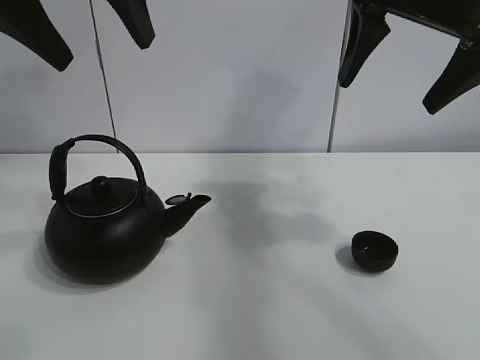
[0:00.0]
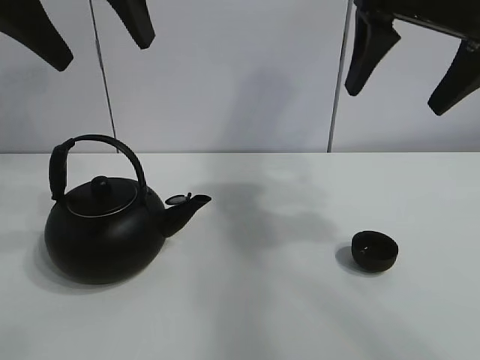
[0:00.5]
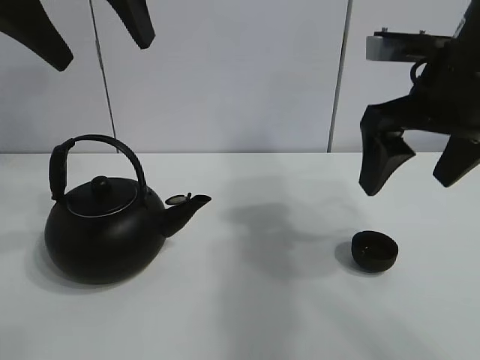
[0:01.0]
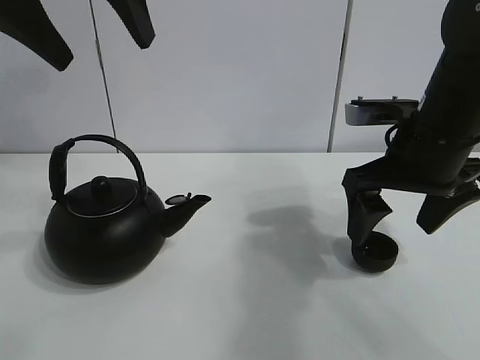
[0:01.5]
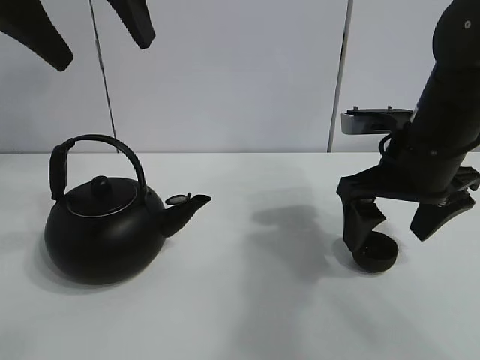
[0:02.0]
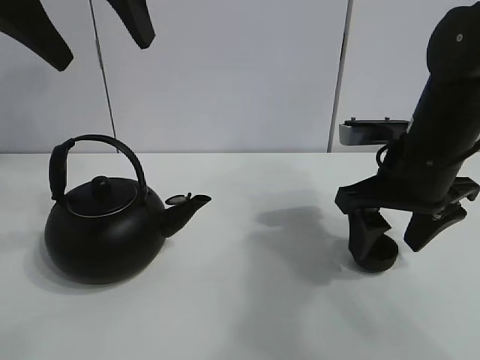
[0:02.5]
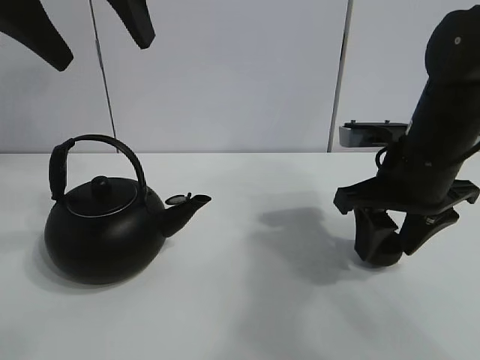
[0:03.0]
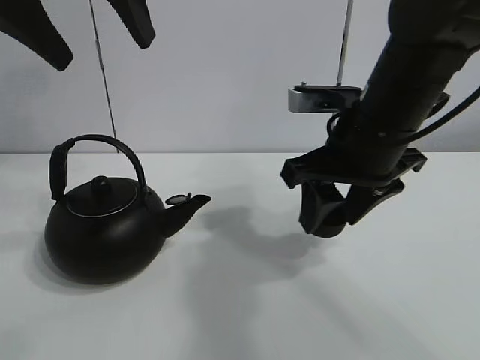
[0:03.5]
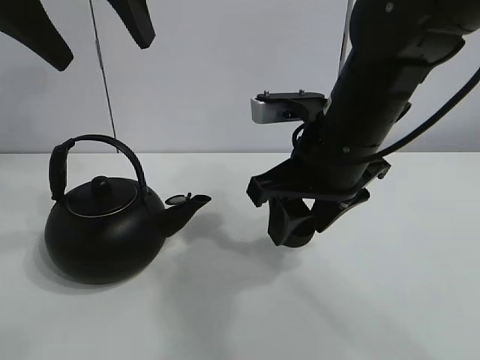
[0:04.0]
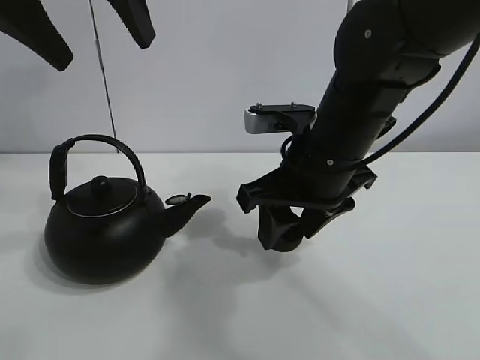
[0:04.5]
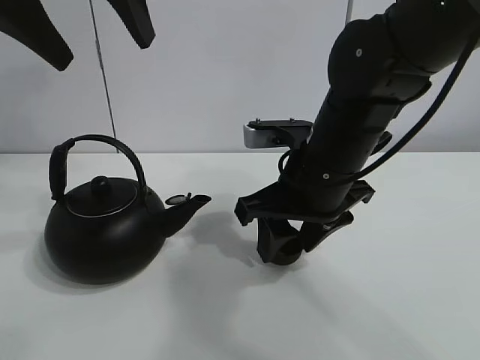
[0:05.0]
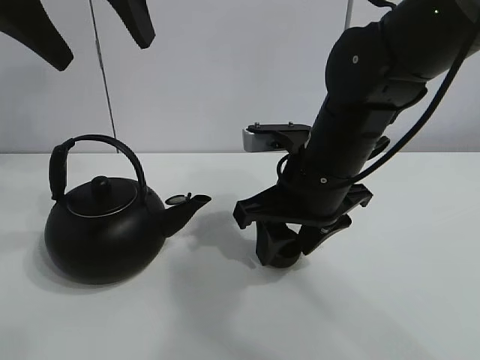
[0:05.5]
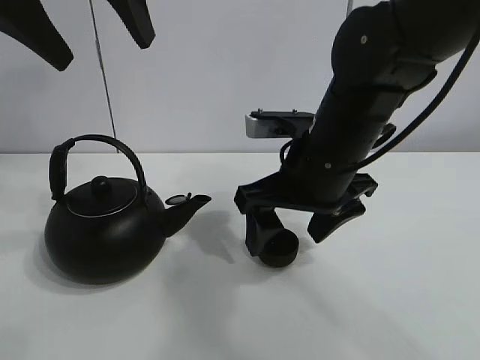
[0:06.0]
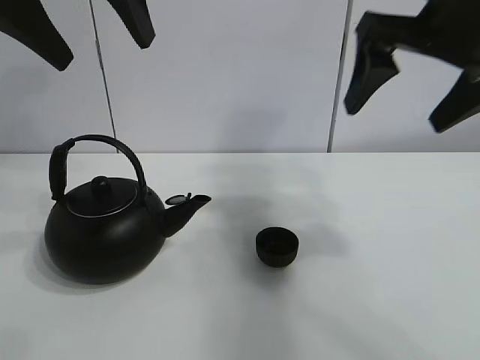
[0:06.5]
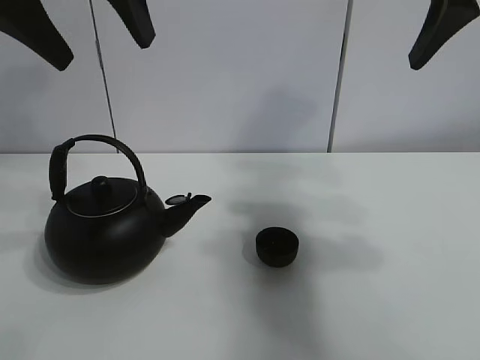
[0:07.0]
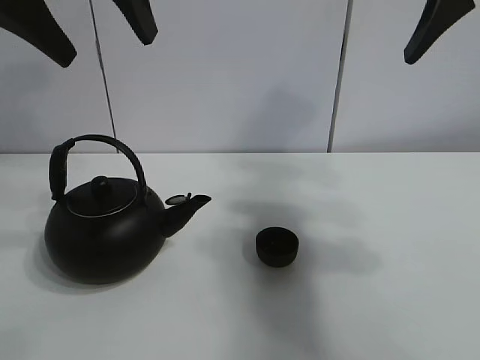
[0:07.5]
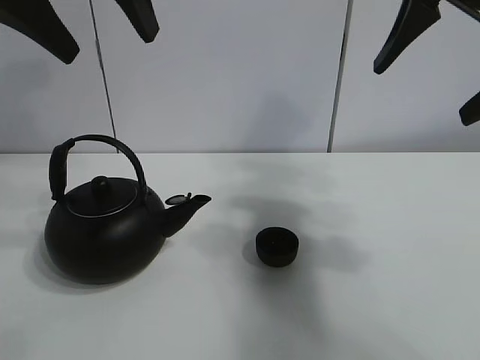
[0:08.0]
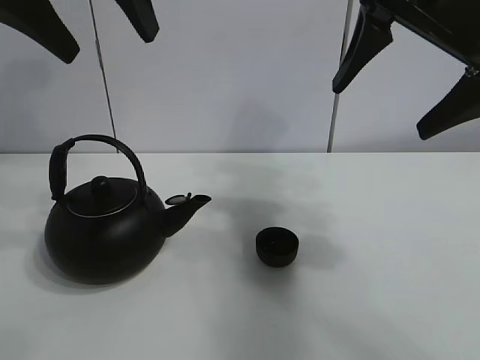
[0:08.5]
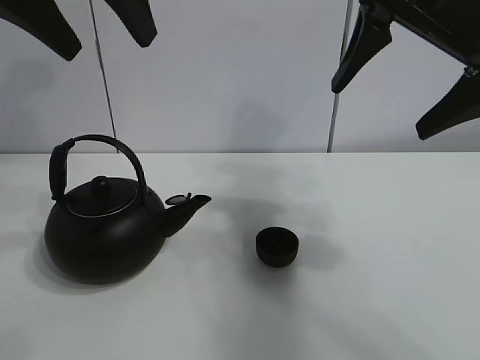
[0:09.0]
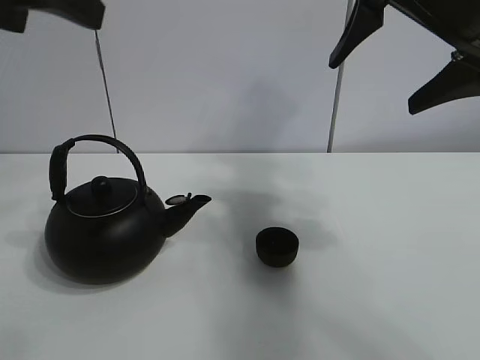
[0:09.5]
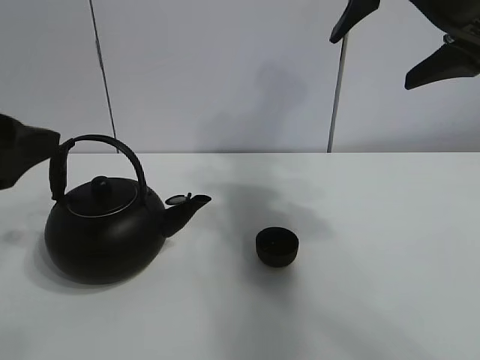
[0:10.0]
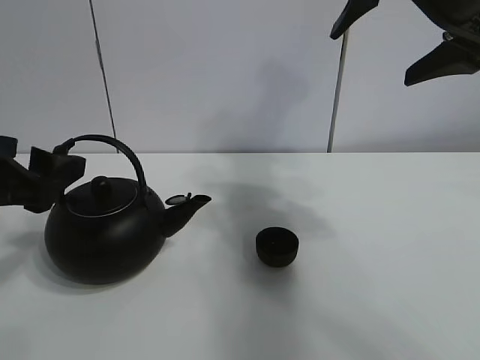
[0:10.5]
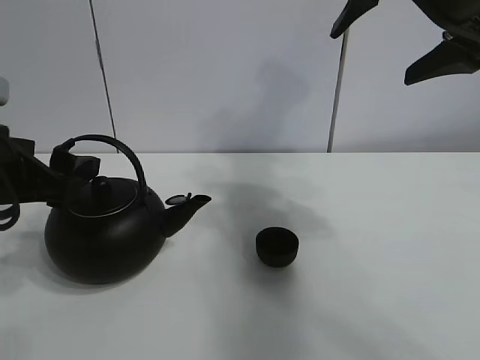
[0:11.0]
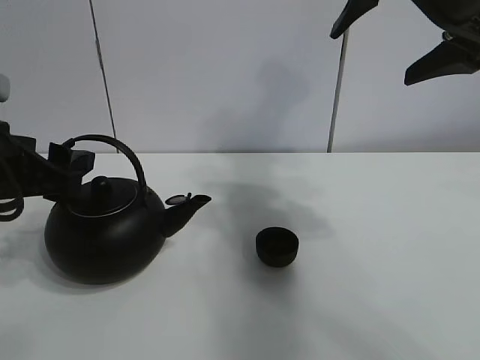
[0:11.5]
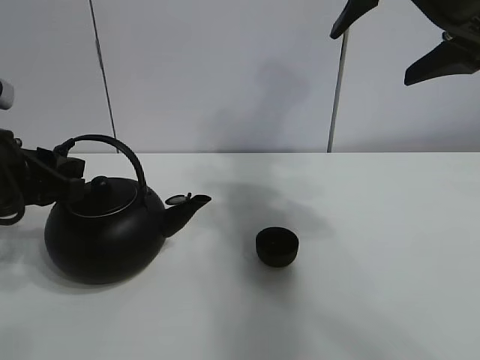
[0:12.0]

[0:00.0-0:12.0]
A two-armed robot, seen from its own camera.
Task of the whole recording: pour tea into the teacup.
Step, 0:00.0 to 0:02.5: Pick up the teacup with the right gripper.
Step, 0:03.0 to 0:05.5: Place the teacup in the center of view with the right gripper.
0:02.0 to 0:04.0: The right gripper goes about 10 cm to the left, and closes.
0:04.0 to 0:06.0: The right gripper opens.
0:06.0 to 0:08.0: The right gripper shifts some 20 cm upward and to the right.
0:08.0 to 0:10.0: The left gripper travels downward, backward and to the left by approximately 20 cm.
0:10.0 to 0:12.0: The left gripper moves downward and forward, roughly 10 cm, and closes its fingers.

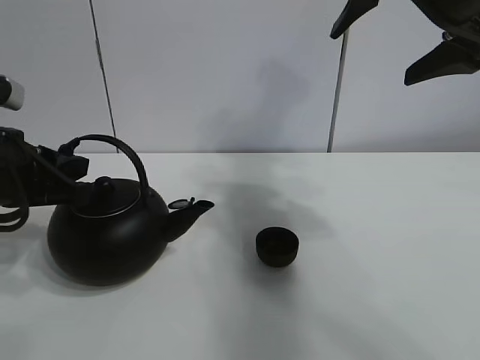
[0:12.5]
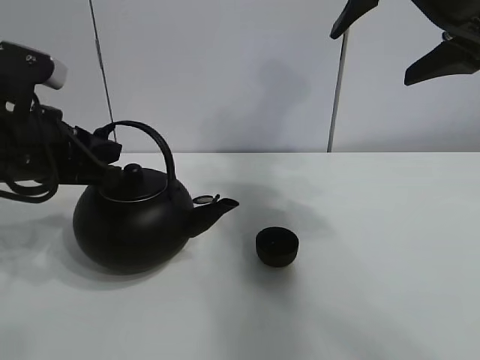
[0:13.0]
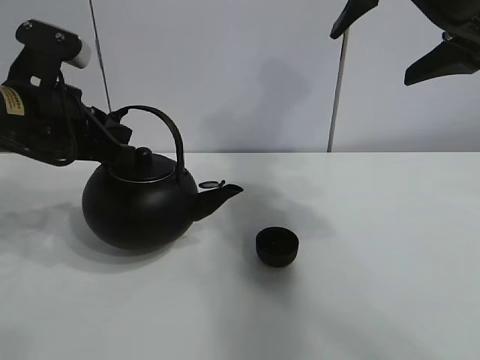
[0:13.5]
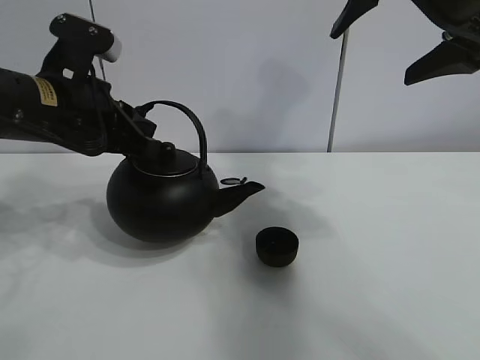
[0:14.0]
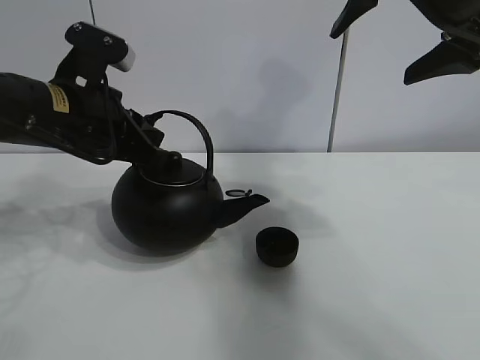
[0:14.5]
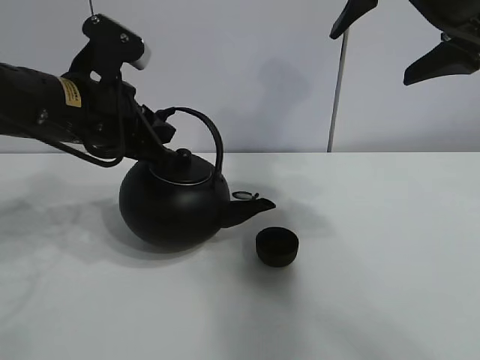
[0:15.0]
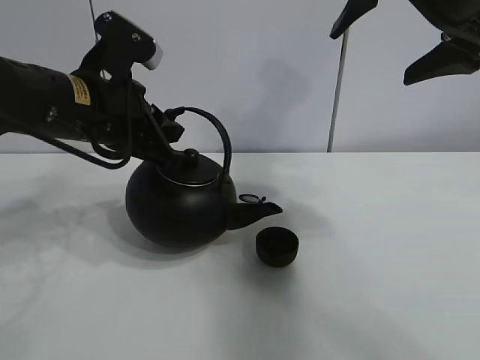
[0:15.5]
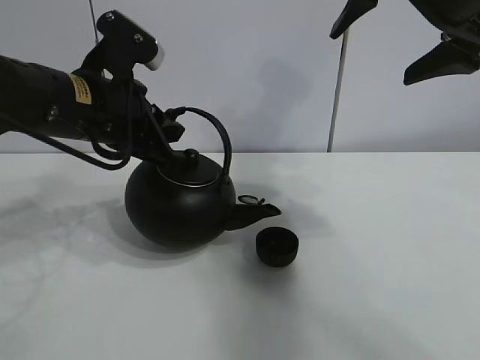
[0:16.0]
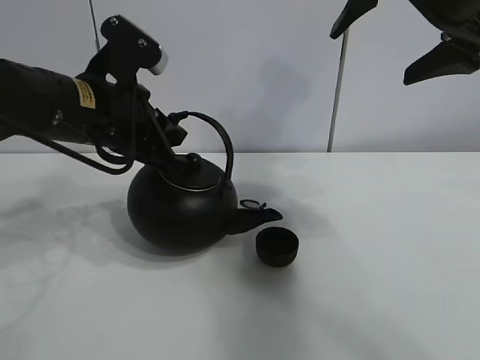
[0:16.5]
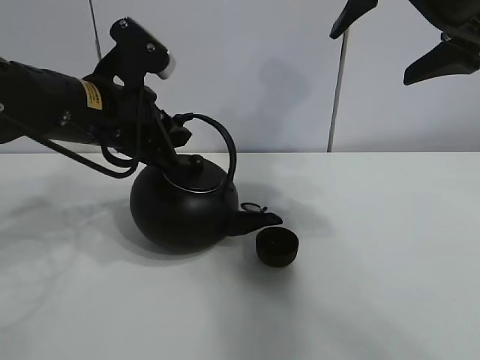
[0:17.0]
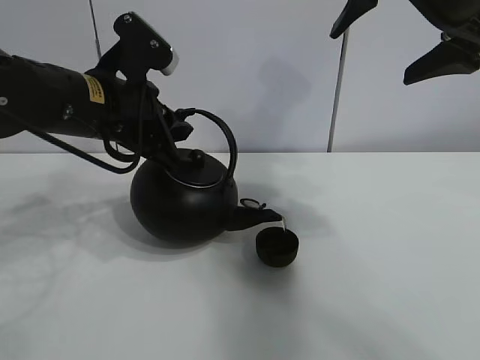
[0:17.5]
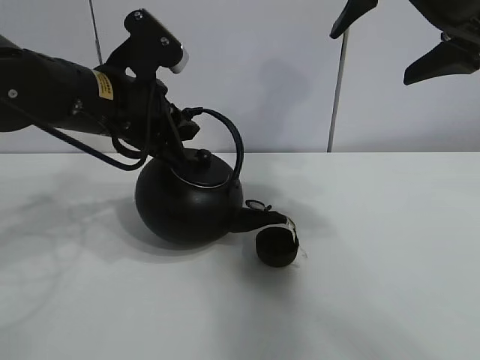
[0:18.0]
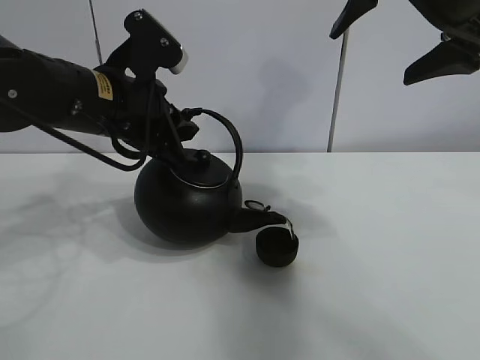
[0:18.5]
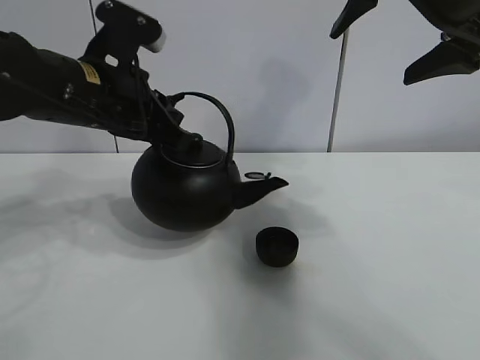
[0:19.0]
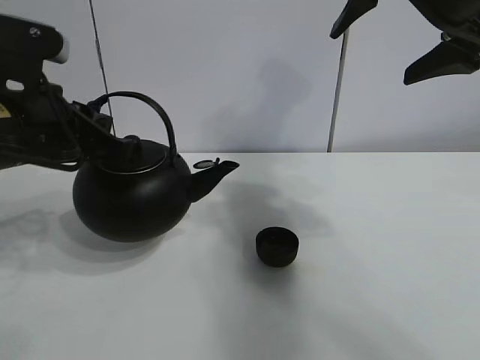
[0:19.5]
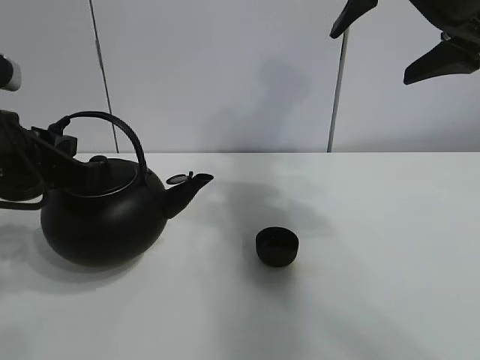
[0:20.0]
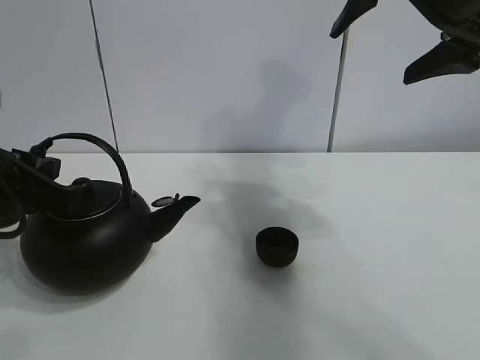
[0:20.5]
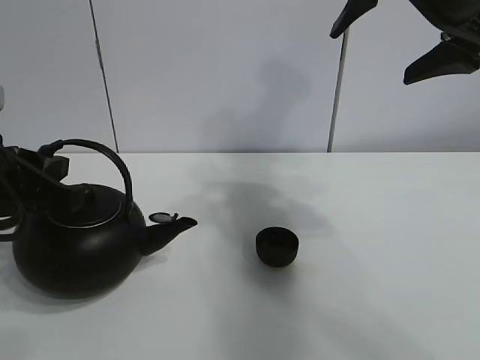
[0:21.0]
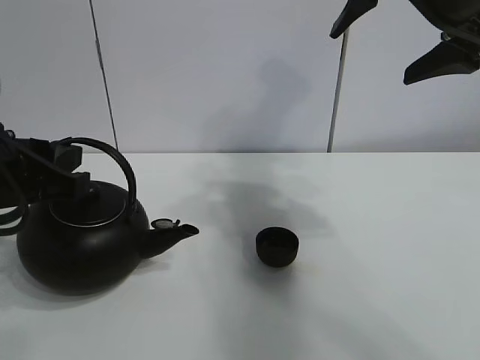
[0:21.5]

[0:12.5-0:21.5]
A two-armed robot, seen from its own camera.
Task of the whole recording: pour tea into the teacup.
Step, 0:12.5 to 0:18.5: Pour tea into the teacup with the left gripper.
0:12.5 to 0:14.5: The left gripper is displaced to the right and forward by about 10 cm.
0:14.5 to 0:17.0: There are only small adjustments of the grippers.
0:17.0 to 0:19.5: The left gripper travels to the left and backward by roughly 5 cm.
0:19.5 to 0:21.5: The left gripper travels backward by roughly 5 cm.

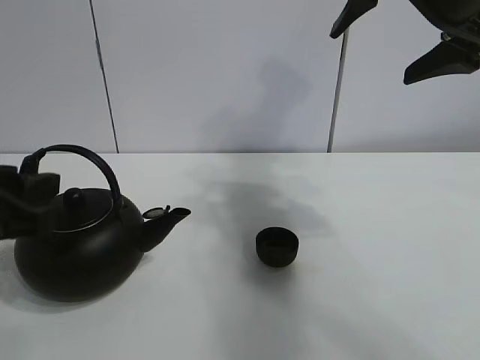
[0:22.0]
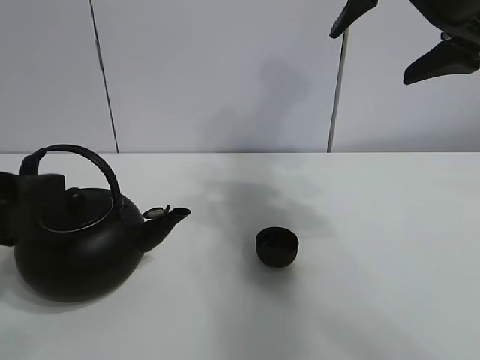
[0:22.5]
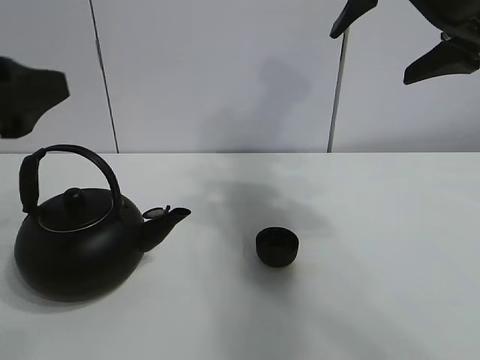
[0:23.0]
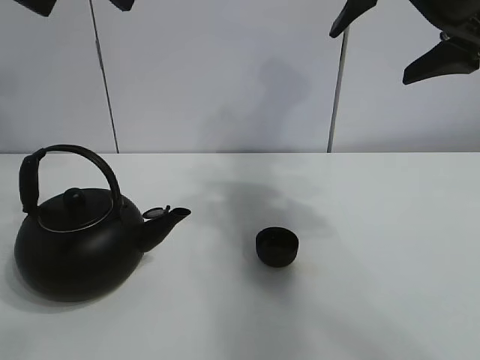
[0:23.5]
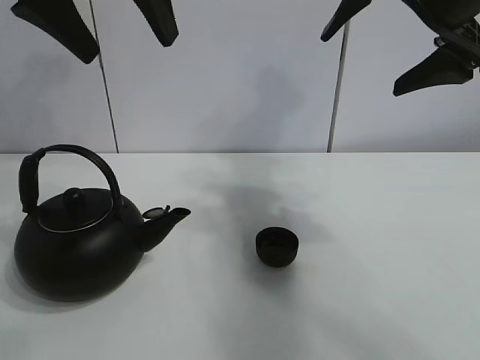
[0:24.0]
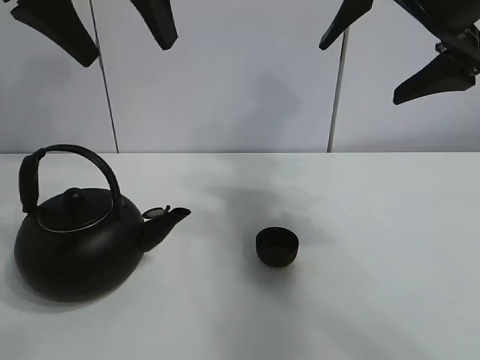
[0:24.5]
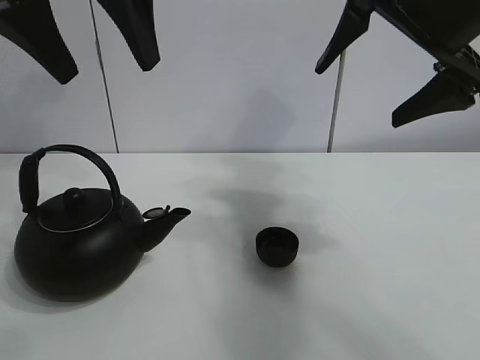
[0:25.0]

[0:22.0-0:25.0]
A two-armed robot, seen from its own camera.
Task of the whole recording: pour tea into the teacup.
0:22.0 to 0:23.5: The left gripper is displaced upward by some 20 cm, and opens its fingers.
0:23.5 to 0:25.0: The left gripper heads forward, covering some 5 cm.
